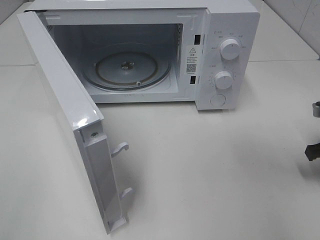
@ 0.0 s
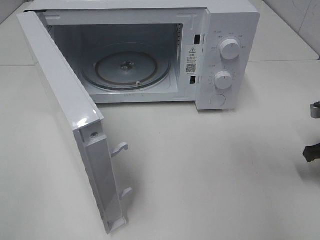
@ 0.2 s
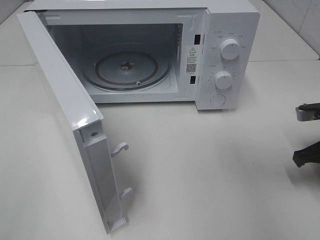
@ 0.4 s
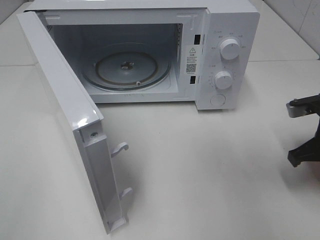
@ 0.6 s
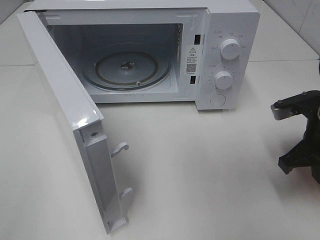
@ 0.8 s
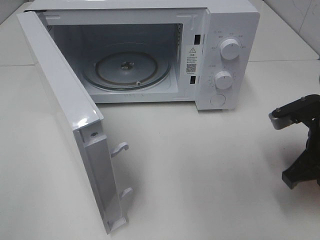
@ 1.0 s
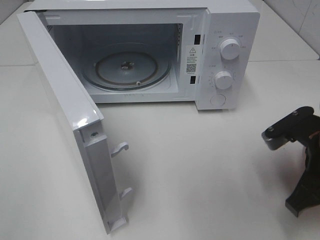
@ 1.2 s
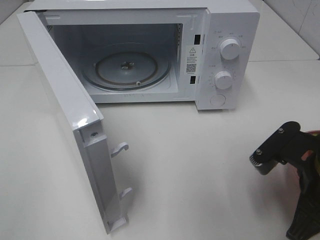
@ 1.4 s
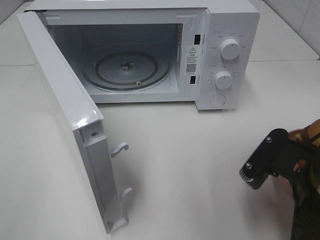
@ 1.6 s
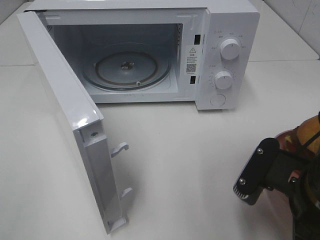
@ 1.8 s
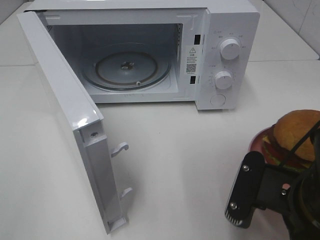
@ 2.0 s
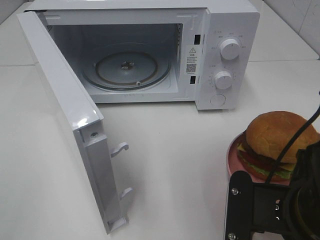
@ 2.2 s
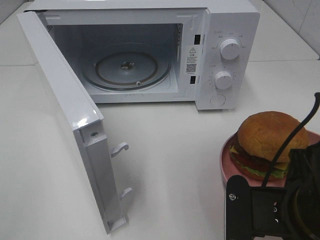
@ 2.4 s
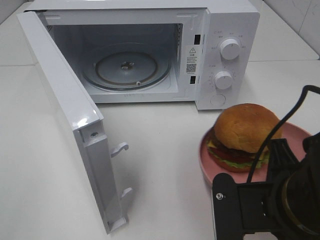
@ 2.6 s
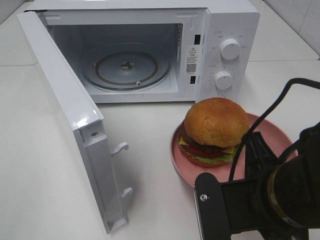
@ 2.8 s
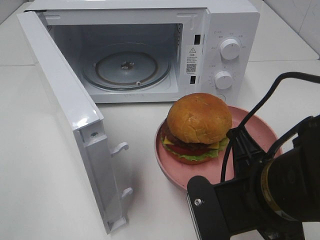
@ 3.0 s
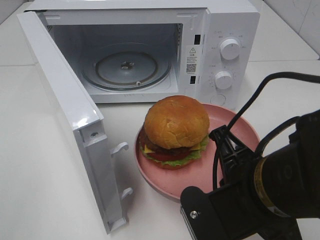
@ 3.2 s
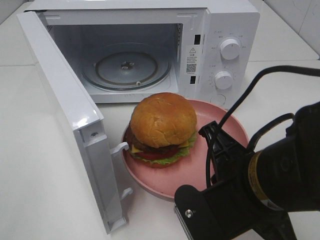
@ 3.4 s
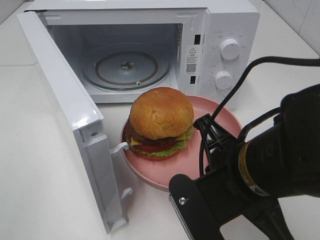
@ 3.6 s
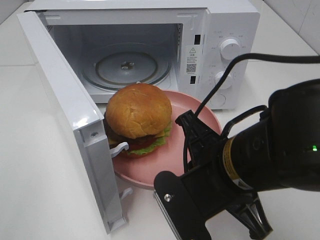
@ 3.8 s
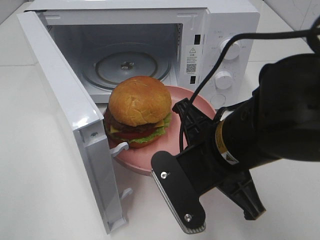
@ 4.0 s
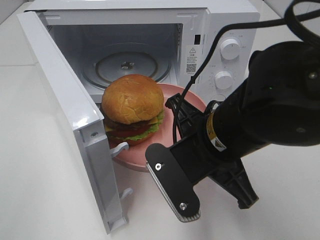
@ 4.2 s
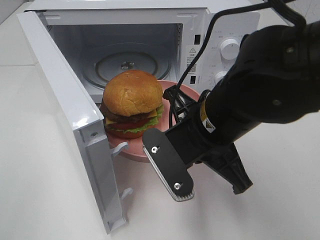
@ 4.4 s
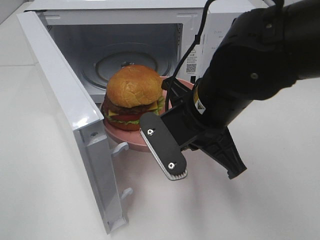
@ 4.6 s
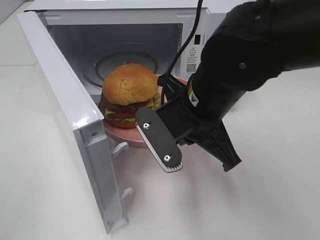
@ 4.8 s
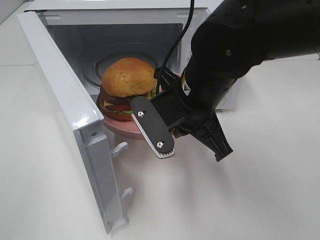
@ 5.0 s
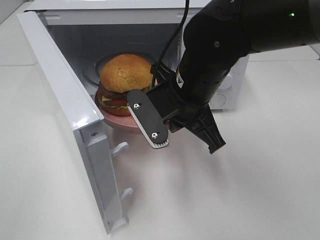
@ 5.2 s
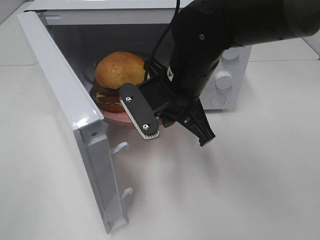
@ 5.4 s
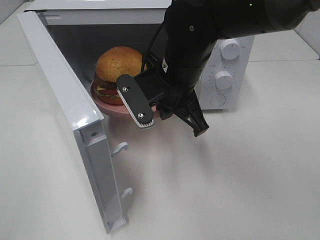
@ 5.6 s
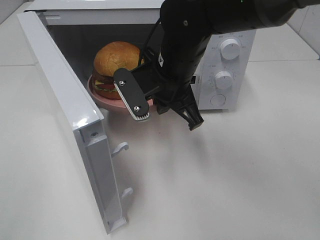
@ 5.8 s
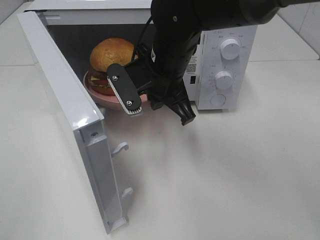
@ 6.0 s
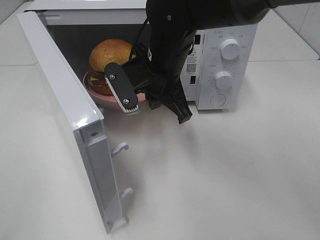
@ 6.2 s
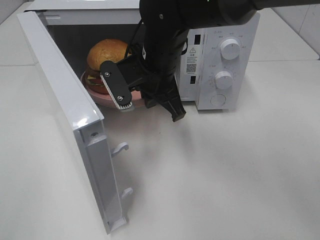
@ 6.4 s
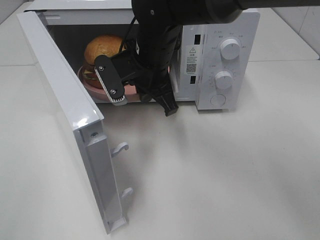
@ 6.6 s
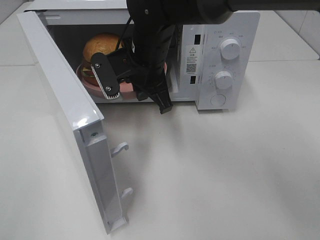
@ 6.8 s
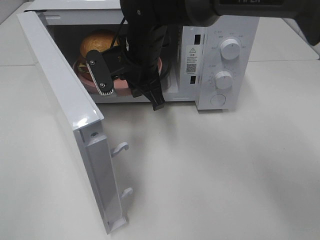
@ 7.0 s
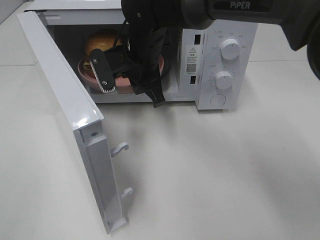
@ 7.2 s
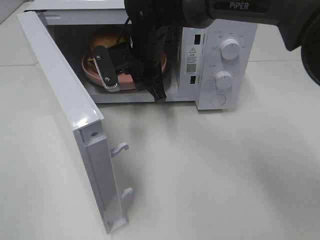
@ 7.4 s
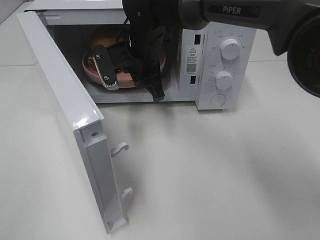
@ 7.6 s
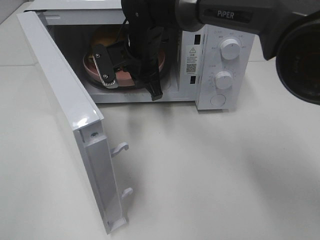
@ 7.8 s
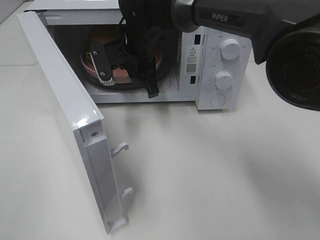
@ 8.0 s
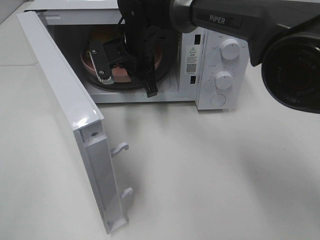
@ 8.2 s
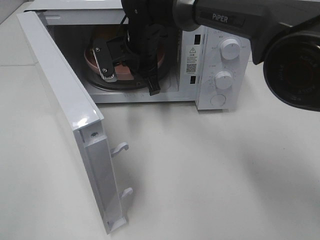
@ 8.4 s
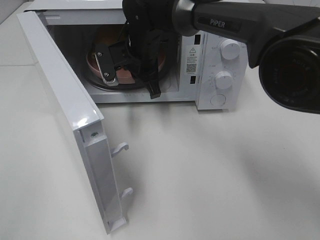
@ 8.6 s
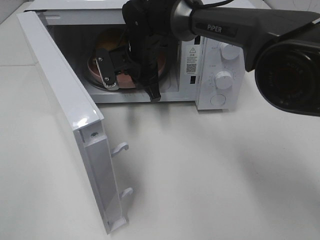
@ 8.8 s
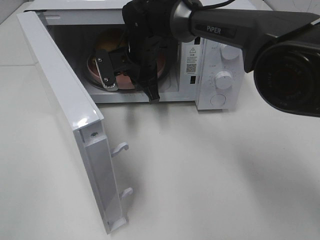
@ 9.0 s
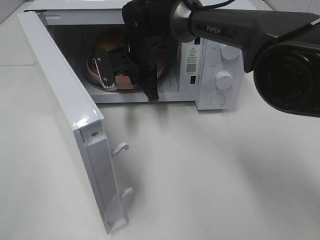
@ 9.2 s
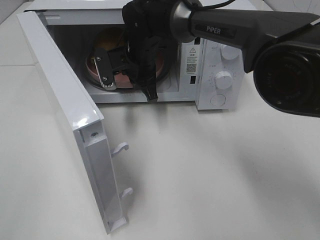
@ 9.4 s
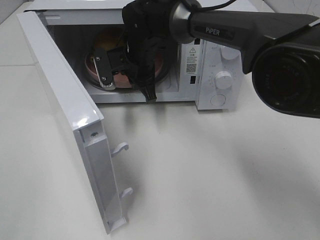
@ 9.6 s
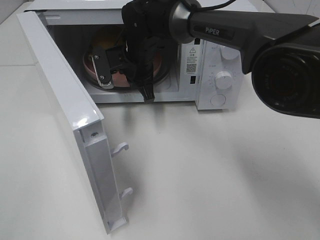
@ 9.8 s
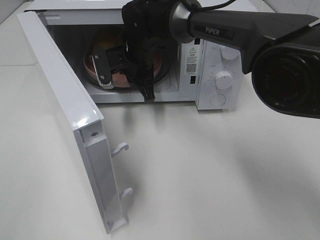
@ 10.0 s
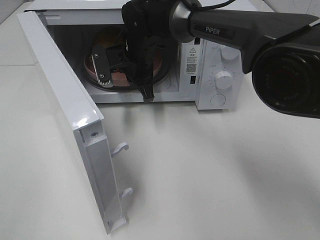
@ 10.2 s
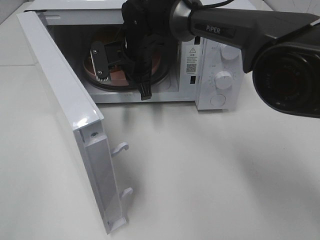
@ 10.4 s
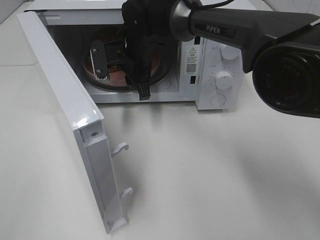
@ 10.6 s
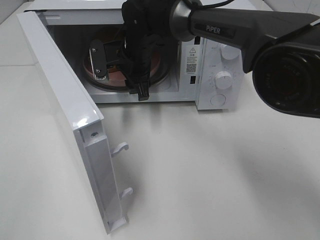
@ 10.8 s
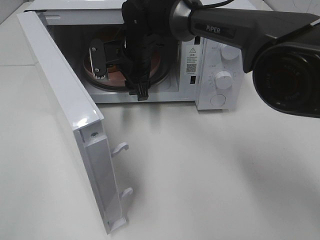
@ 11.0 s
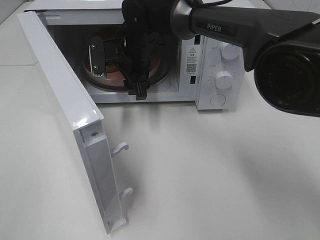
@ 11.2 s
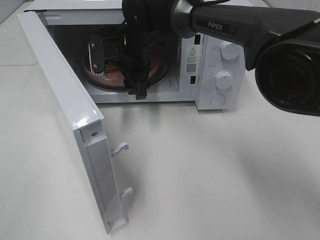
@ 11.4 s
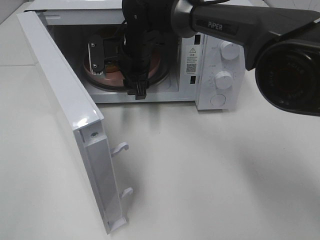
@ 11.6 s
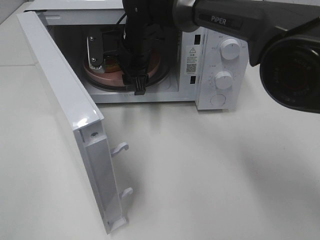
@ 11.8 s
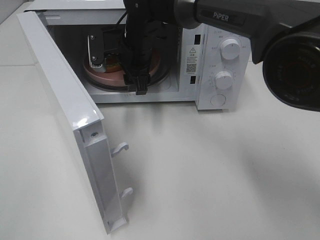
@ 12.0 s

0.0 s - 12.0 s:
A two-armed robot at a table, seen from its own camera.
Task of the whole recording: Heat the burger.
Step, 0.6 s - 10.4 s: Right hand: place the plate in the microwave.
0.0 s - 1.6 s: The right gripper heads to the left and backward, covering roughly 20 cm.
1.6 s - 3.0 s: The right gripper shifts roughly 5 cm to the left.
3.0 s - 4.4 s: The right gripper heads forward, covering about 10 cm.
4.4 s - 6.0 s: The right gripper goes approximately 15 cm forward and to the left.
6.0 s - 7.6 s: The right gripper shifts approximately 10 cm forward.
7.6 s - 10.4 s: The grippers move only a little.
10.4 s - 12.0 s: The right gripper opens.

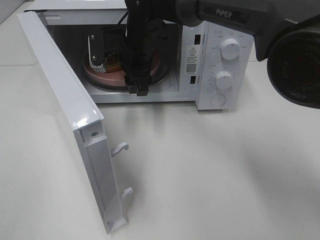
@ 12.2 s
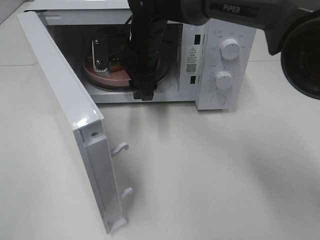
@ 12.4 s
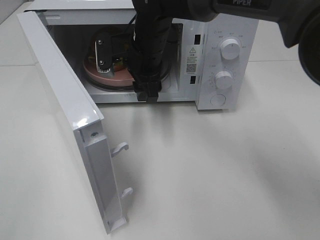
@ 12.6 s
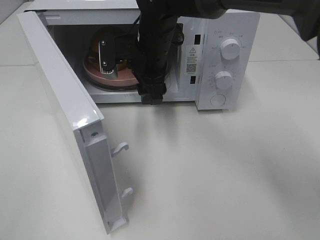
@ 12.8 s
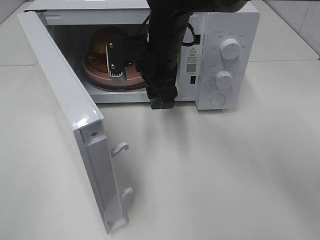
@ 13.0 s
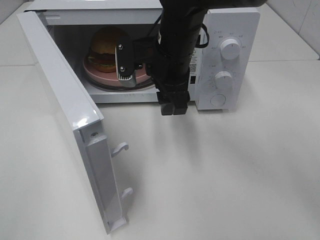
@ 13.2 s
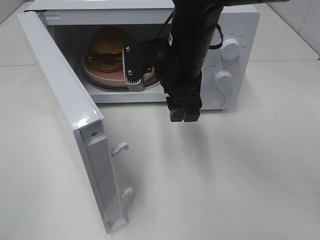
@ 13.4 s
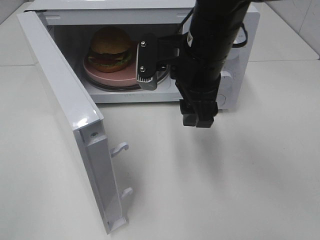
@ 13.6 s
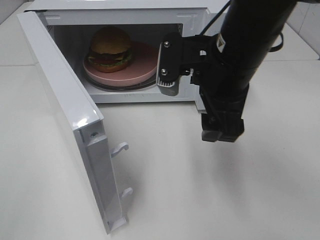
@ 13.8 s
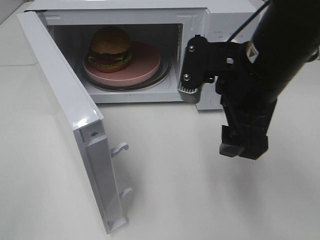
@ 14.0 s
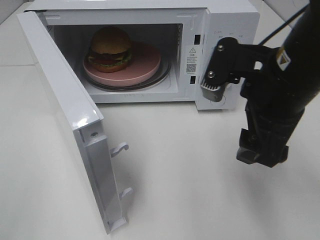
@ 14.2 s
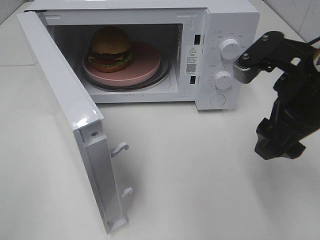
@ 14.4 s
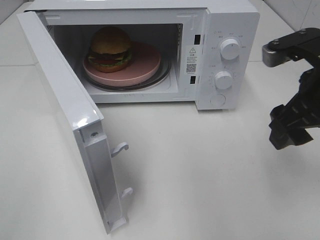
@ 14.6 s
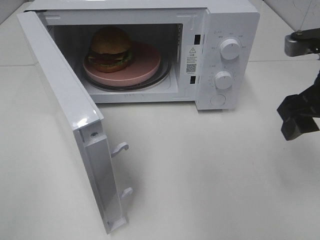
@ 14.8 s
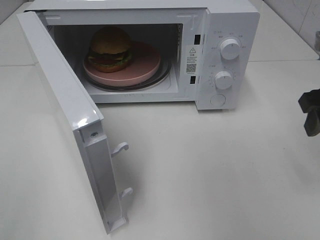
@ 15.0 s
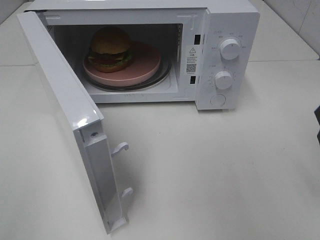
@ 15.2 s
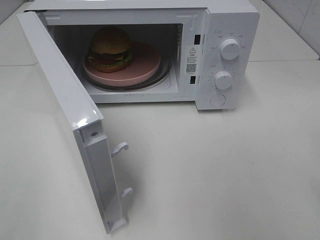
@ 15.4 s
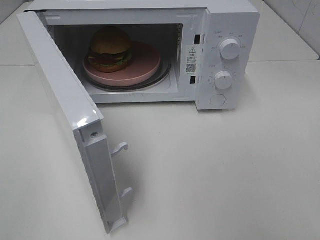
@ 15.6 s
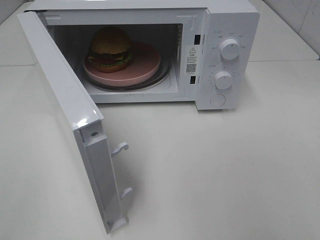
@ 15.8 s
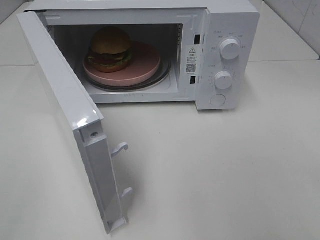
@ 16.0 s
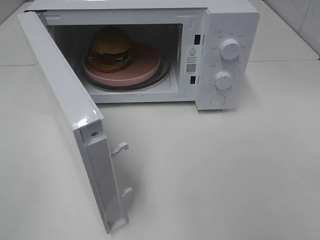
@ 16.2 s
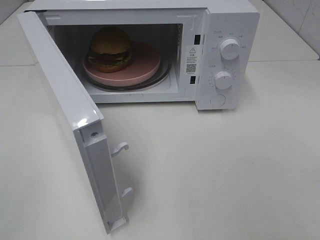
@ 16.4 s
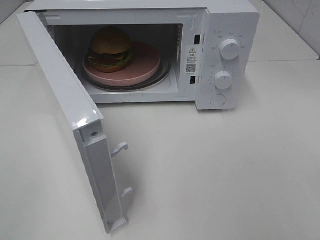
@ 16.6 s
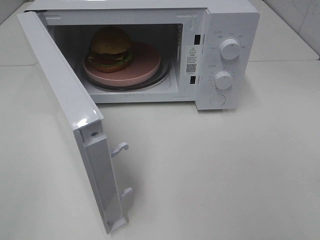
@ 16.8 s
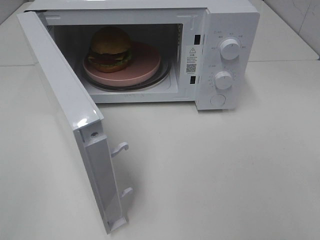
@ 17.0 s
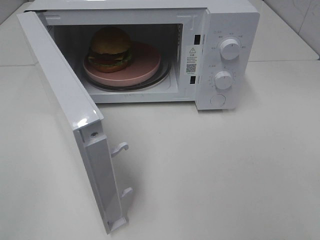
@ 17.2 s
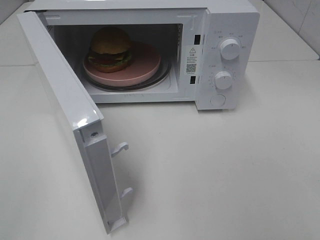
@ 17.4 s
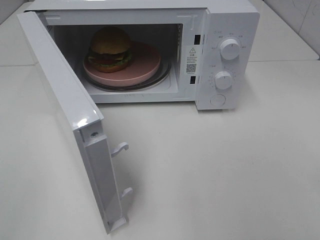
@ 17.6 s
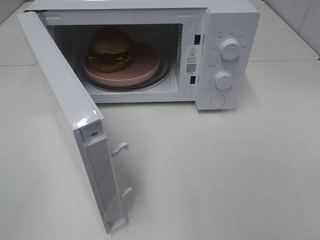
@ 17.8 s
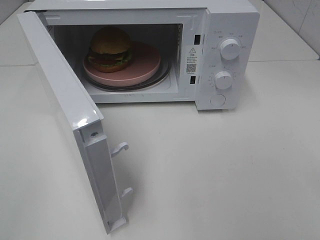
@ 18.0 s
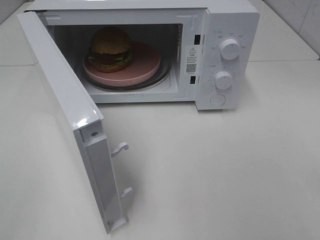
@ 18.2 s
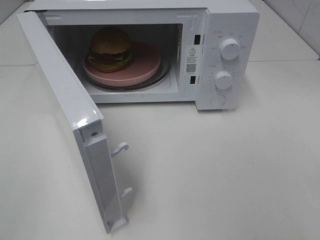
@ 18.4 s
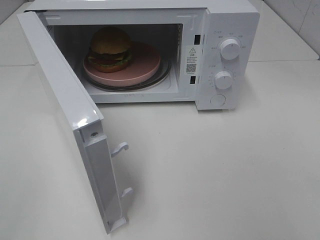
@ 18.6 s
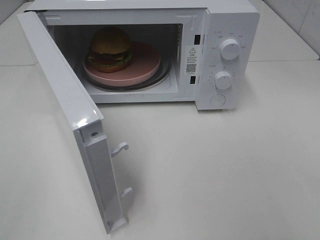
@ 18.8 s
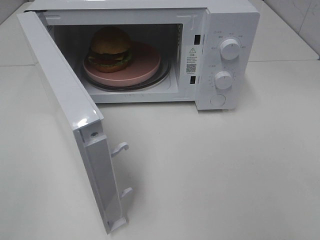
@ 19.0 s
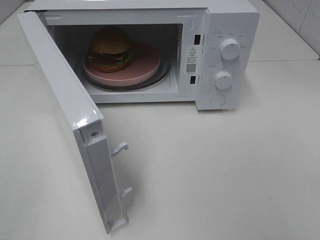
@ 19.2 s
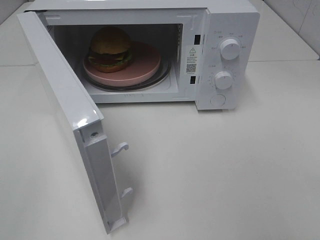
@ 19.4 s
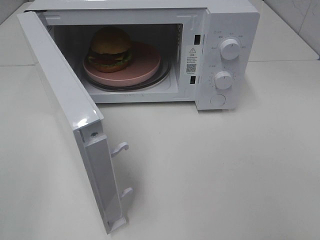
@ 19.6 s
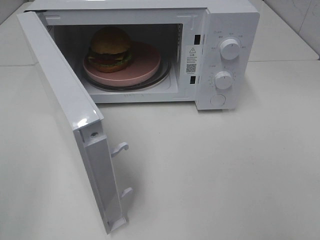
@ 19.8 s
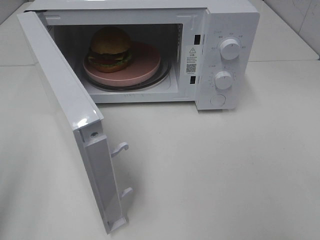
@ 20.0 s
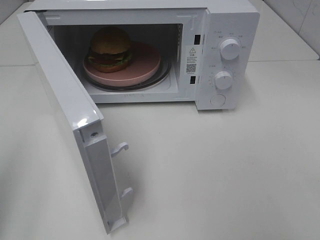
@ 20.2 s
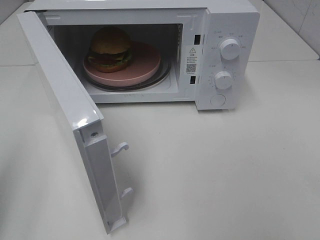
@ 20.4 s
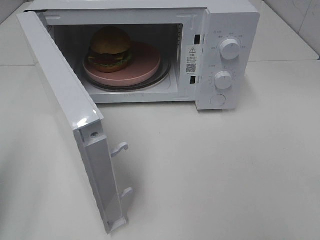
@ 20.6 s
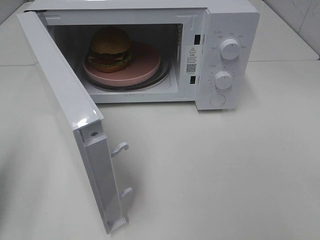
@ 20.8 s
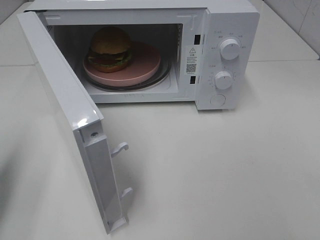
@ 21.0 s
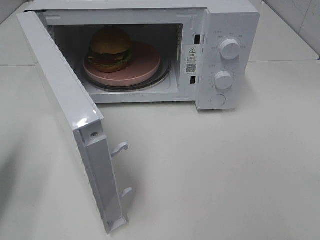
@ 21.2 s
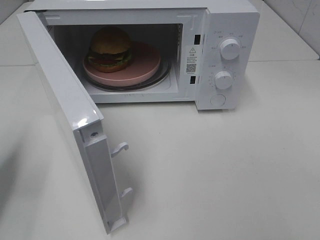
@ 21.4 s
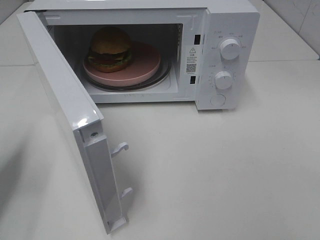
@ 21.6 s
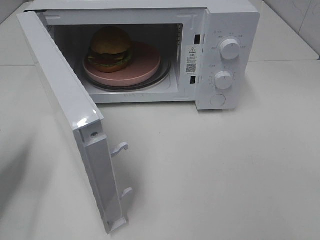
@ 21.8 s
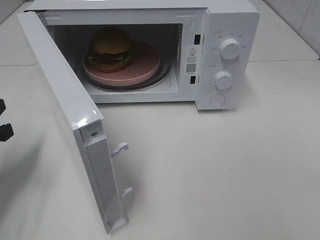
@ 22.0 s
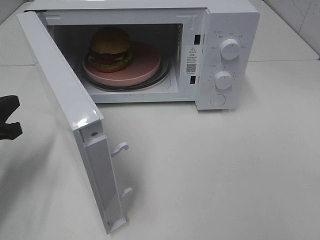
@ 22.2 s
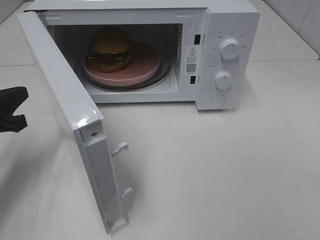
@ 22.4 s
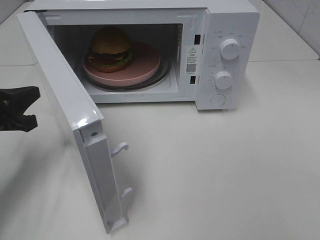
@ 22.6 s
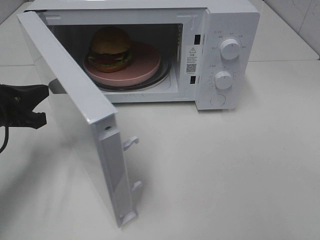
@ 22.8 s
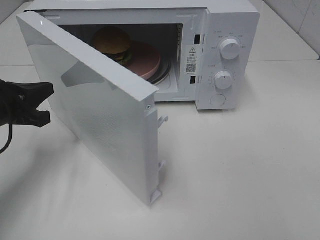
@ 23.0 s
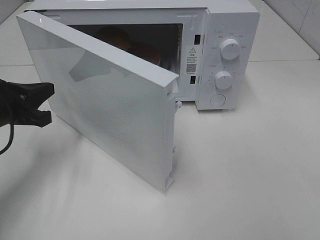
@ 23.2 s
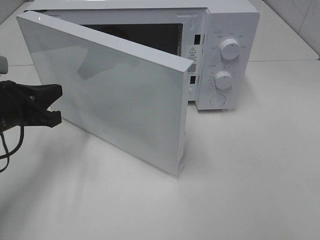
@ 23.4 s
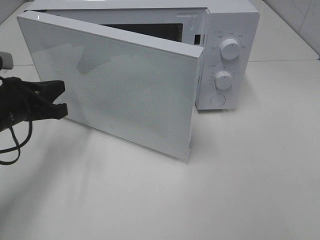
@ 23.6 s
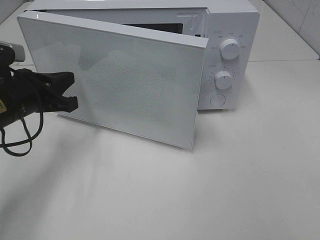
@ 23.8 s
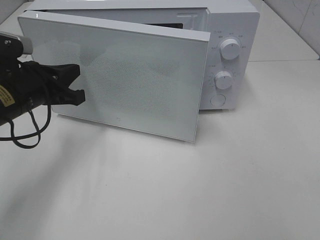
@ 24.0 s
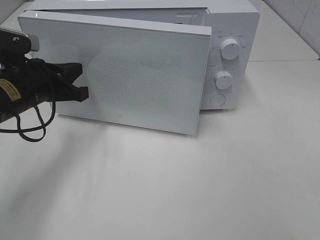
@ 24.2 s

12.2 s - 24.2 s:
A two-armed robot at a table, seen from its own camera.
Task of the whole recording: Heat the burger.
12.2 s - 13.8 s: The right gripper goes roughly 20 cm backward and to the right.
13.8 s - 15.2 s: The right gripper shifts approximately 20 cm to the right.
19.8 s - 21.2 s: The left gripper is displaced forward and downward by approximately 20 cm, and closes up.
21.2 s - 22.6 s: The left gripper shifts approximately 5 cm forward.
22.6 s - 24.2 s: The left gripper travels to the right and forward by about 10 cm.
